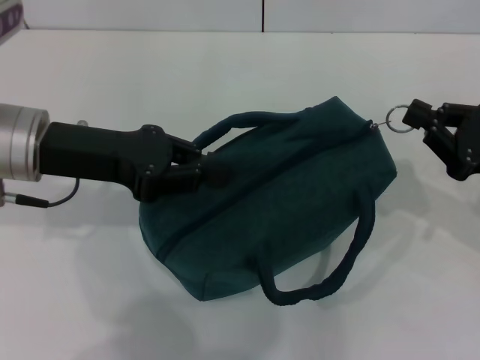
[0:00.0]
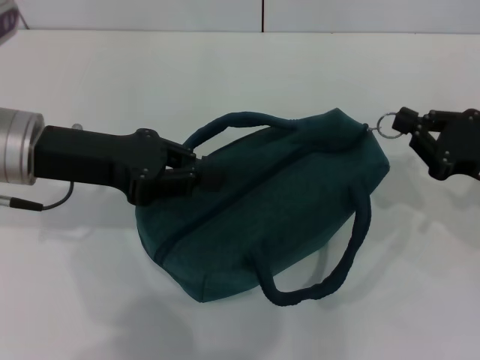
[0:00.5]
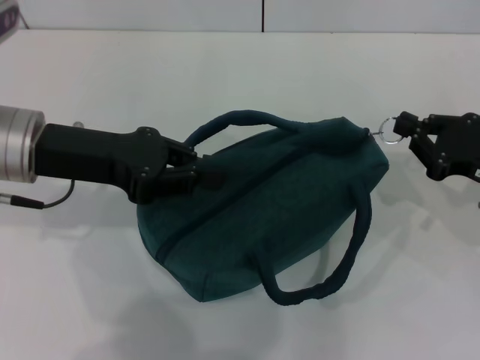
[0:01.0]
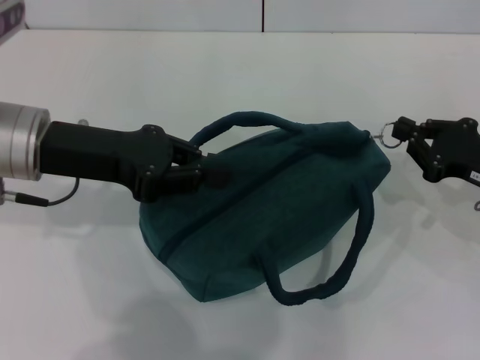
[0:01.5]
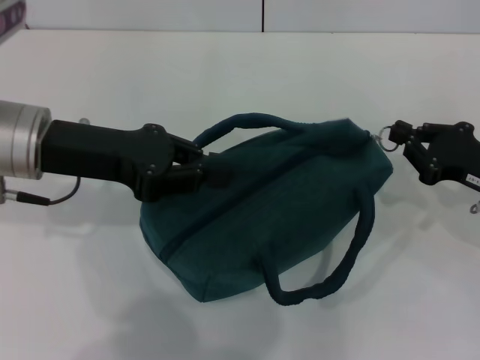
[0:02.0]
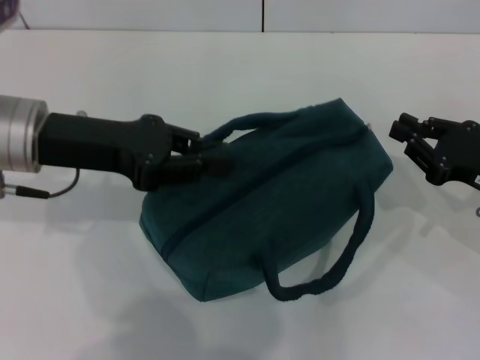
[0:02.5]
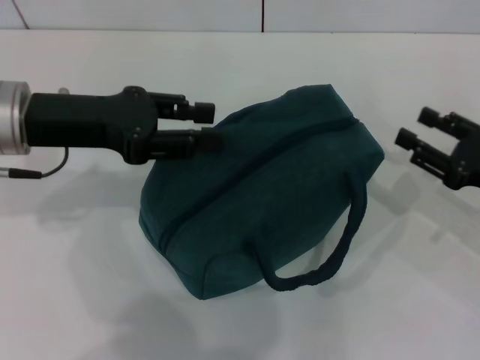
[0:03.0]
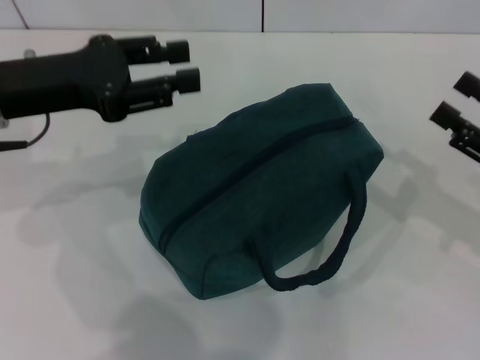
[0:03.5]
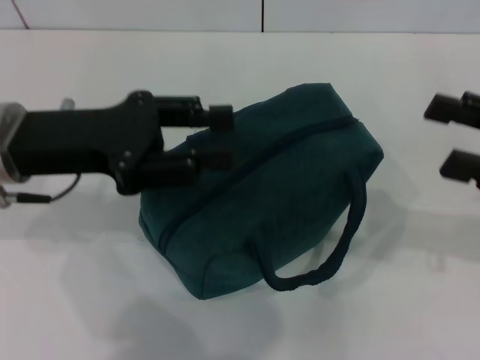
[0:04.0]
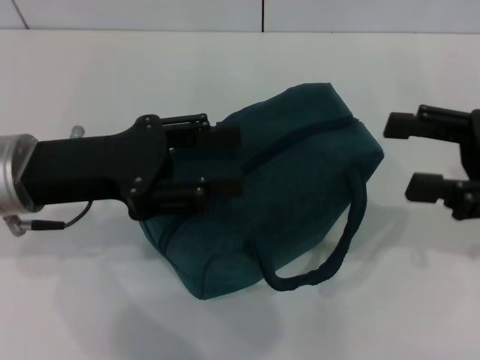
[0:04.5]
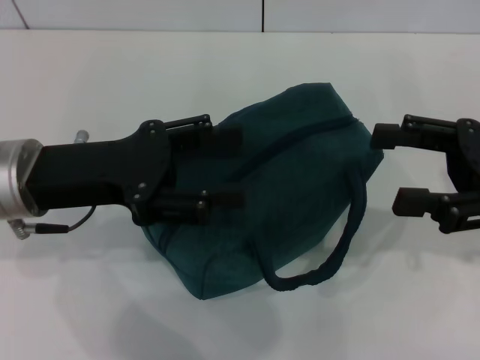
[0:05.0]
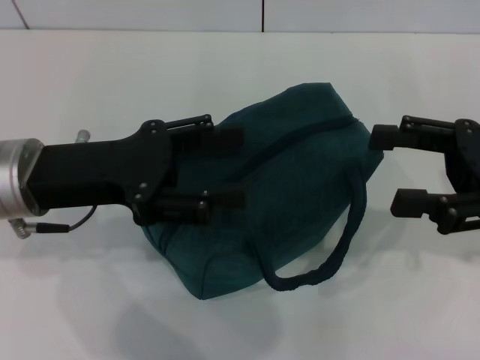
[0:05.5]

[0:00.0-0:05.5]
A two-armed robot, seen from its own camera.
Step, 0:00.0 to 0:02.0: Zip up the lunch bag with your right hand.
0:00.0 to 0:02.0: The grippers move only a little.
0:02.0 to 0:03.5: The left gripper opens up; the right gripper ends up some 5 cm from where it was, and opens its fingers.
0:03.5 to 0:05.5: The right gripper shifts about 5 cm upward; the left gripper ends up some 5 cm from where it was, and opens up.
